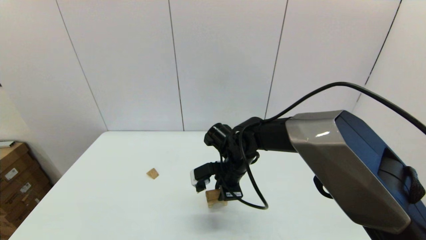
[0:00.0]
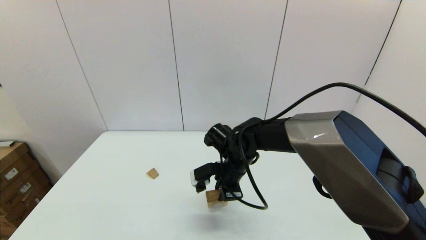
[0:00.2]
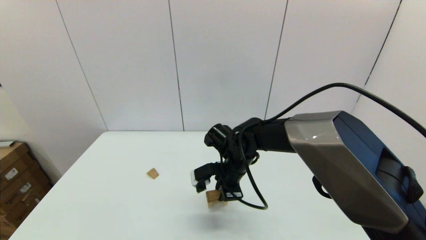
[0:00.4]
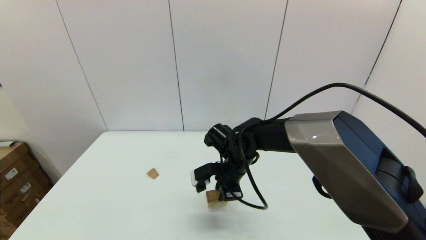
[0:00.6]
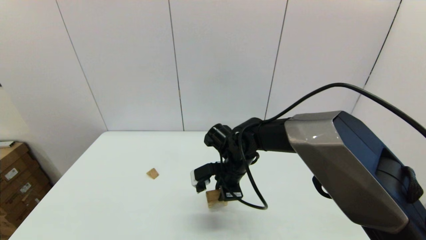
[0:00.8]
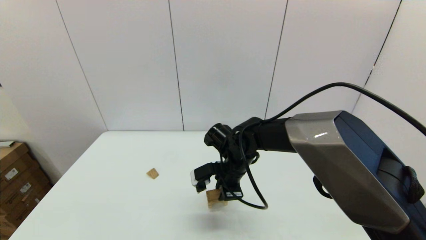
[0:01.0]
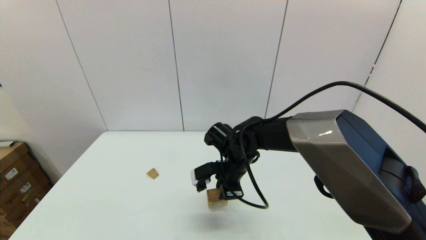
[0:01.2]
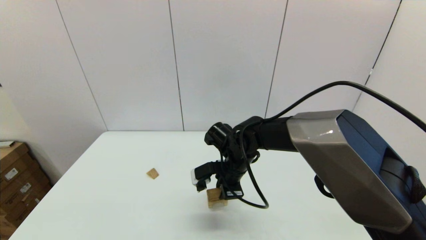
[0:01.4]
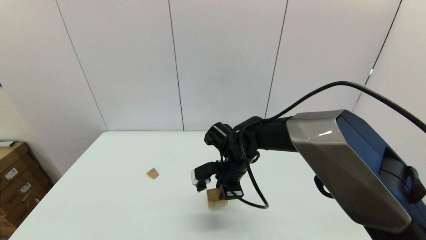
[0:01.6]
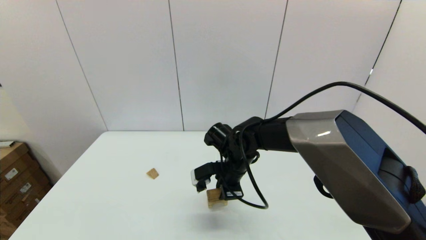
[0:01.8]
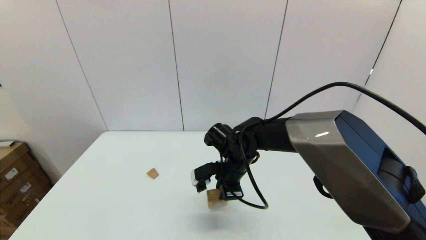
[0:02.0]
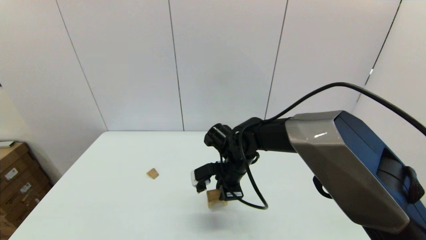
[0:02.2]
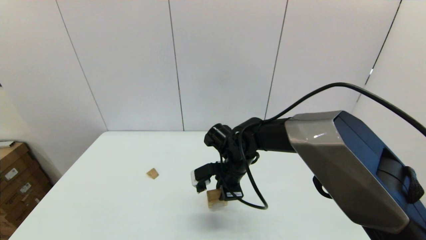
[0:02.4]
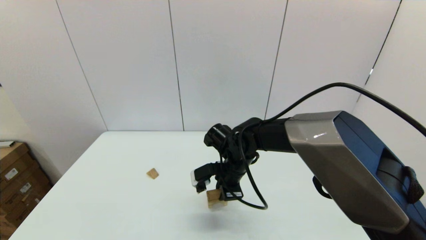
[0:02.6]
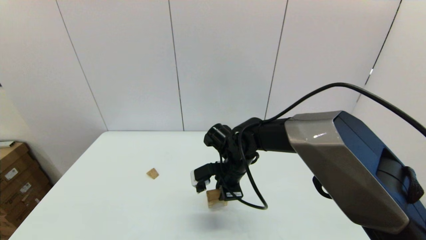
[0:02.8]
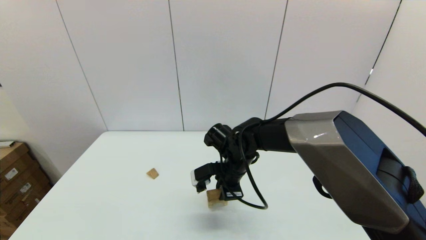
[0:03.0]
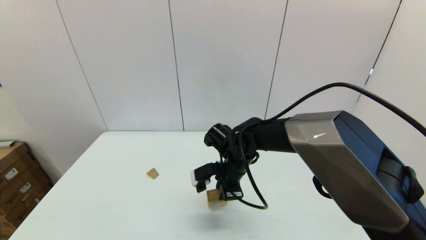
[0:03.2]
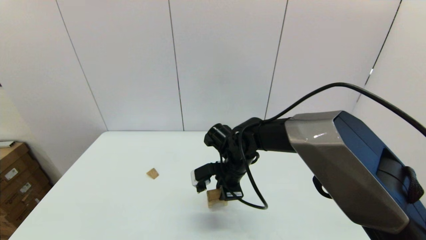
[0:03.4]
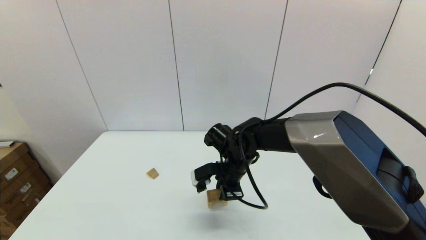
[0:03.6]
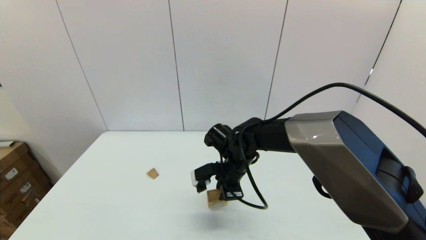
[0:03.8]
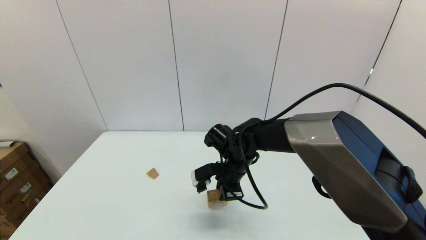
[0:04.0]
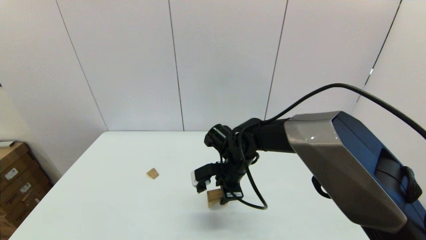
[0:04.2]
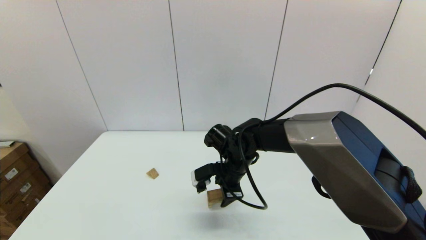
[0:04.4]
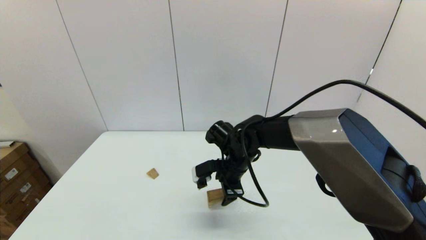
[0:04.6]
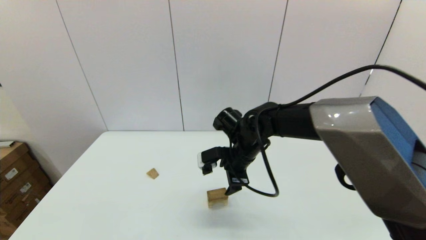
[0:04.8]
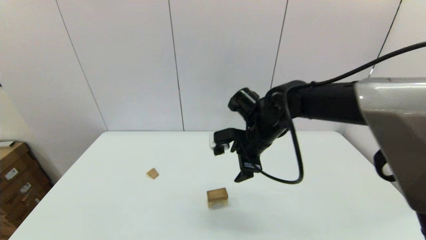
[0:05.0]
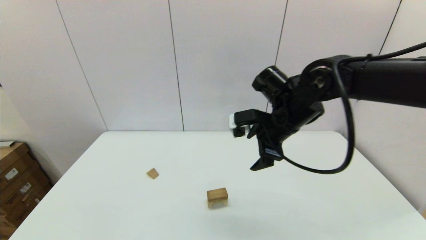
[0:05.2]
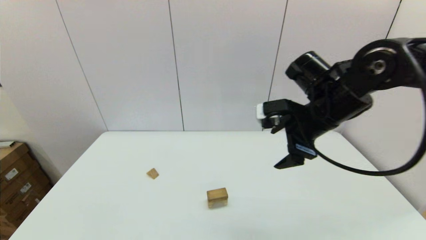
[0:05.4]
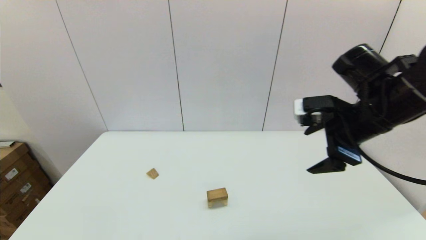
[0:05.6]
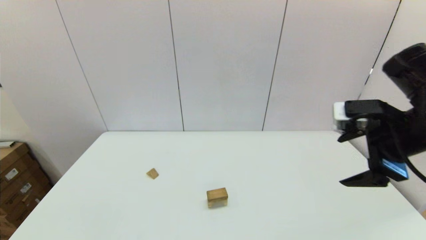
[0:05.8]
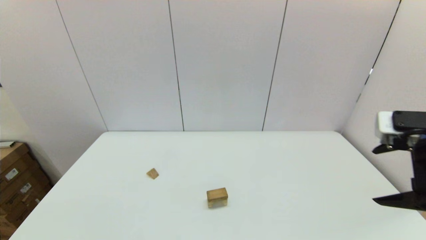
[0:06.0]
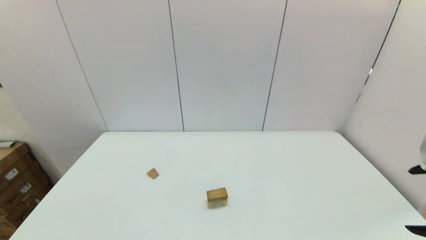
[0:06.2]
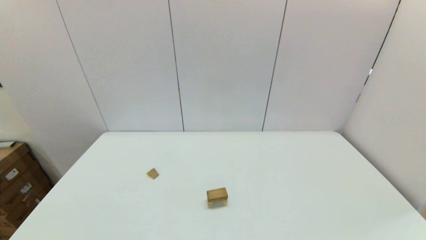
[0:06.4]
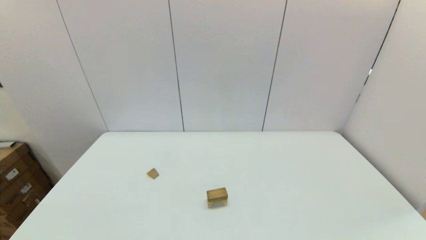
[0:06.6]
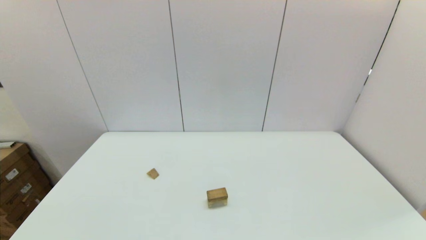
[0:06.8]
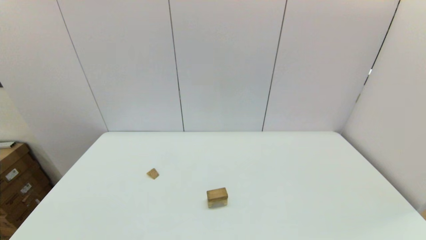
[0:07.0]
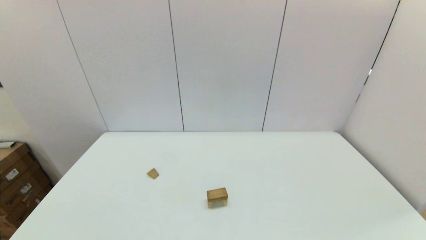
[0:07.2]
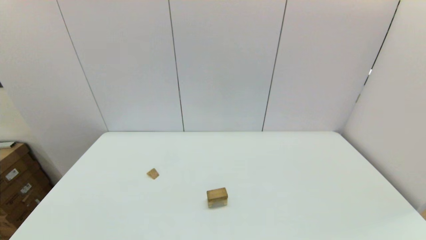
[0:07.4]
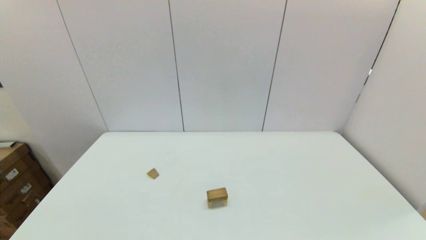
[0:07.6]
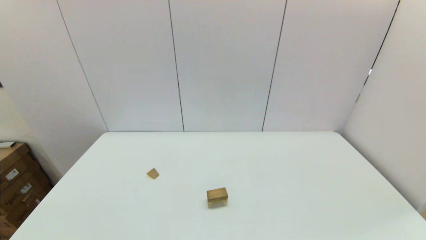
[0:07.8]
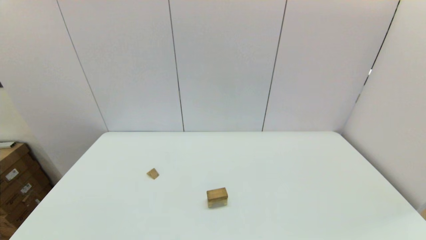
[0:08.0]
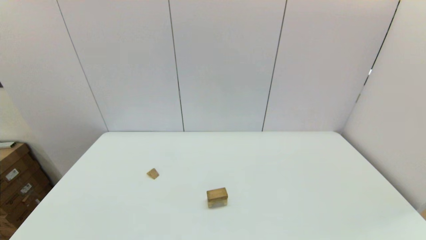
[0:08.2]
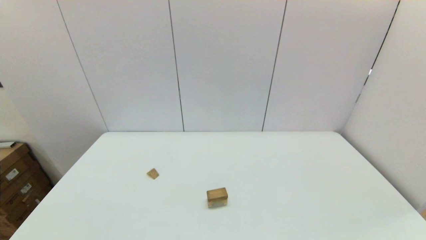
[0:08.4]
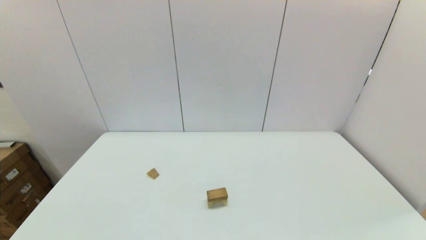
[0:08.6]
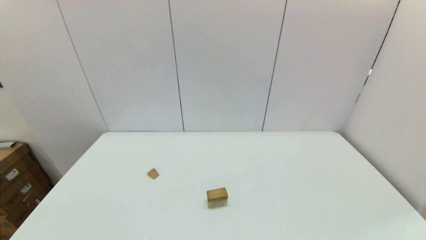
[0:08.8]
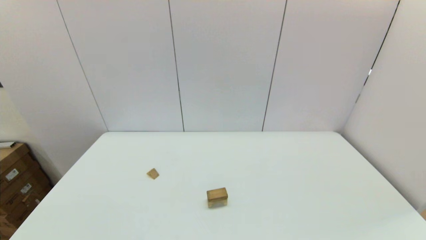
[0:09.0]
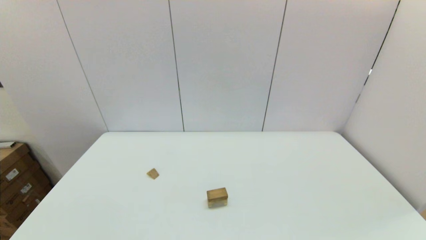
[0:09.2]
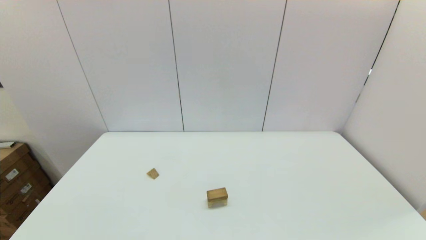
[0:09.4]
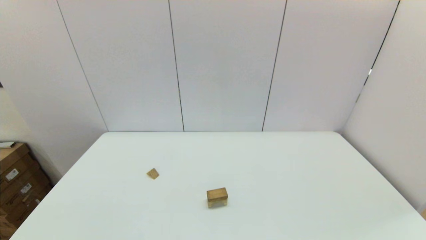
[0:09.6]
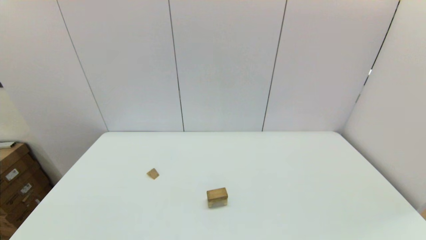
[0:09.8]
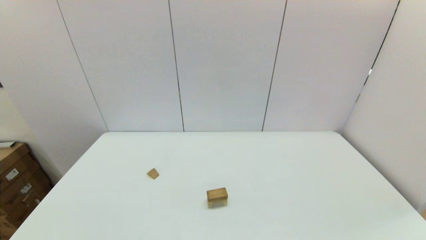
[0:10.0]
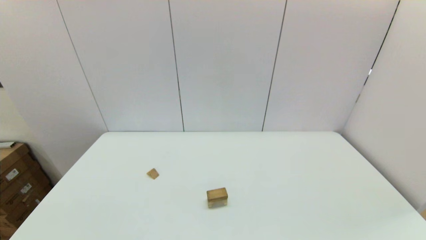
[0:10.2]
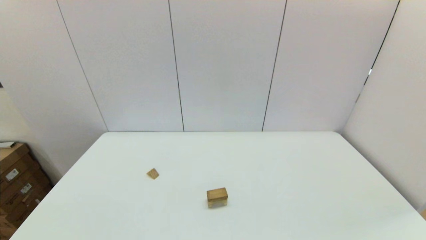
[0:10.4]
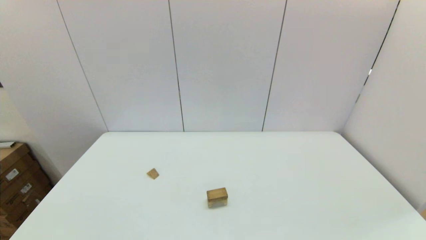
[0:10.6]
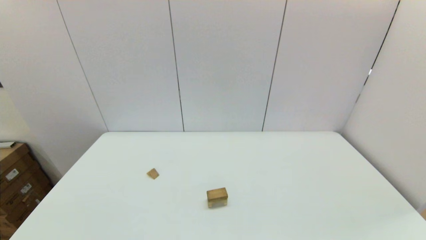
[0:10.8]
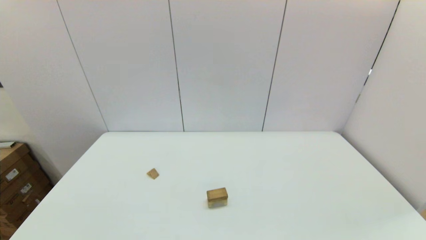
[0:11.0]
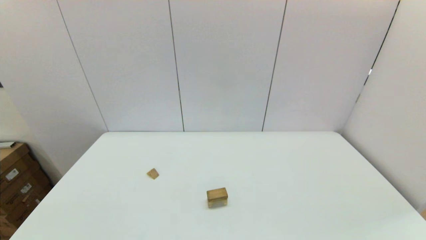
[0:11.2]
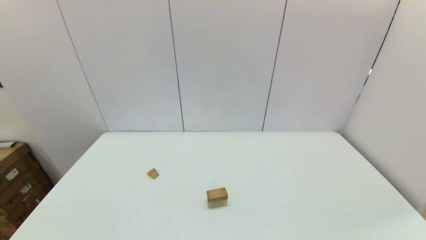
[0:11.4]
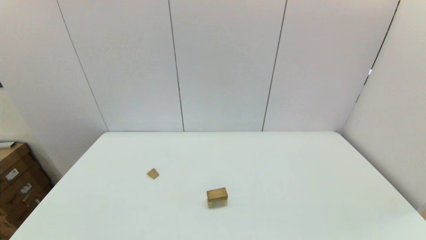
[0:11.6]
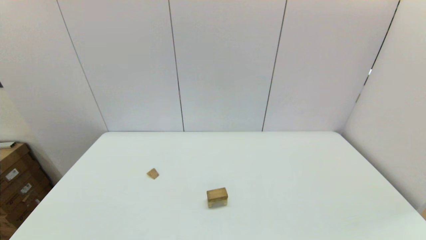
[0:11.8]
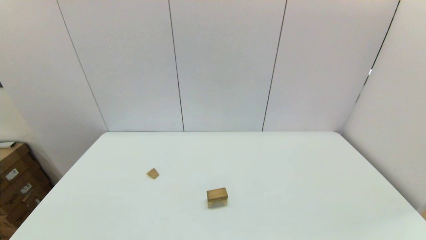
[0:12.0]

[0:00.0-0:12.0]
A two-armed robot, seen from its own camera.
Task of the whole recording: place the arched building blocks in the center of the table, set up the rectangular building blocks, and then set up the triangular building blocks.
Step, 0:00.0 to 0:04.0: Place the box-shaped block onto the arch-shaped block with the right gripper.
0:00.0 to 0:03.0: The two grippers keep their place.
0:03.0 to 0:04.4: The right gripper opens.
0:04.4 to 0:06.0: The right gripper moves to the right, upward and backward, about 35 cm, and opens up.
0:06.0 to 0:07.6: The right gripper goes some 15 cm backward.

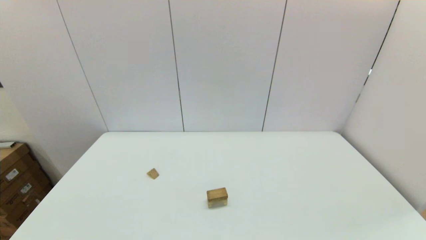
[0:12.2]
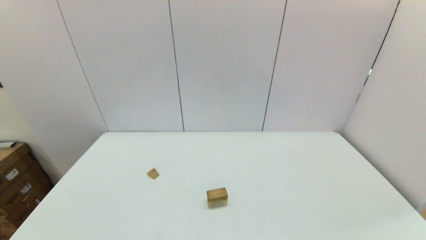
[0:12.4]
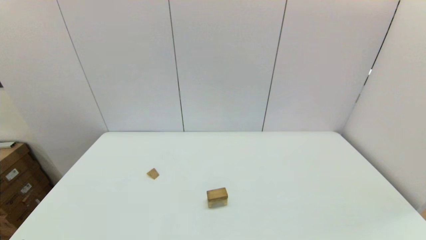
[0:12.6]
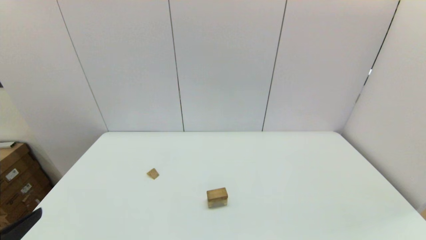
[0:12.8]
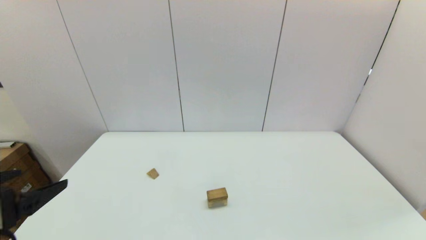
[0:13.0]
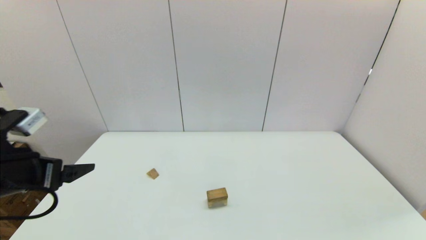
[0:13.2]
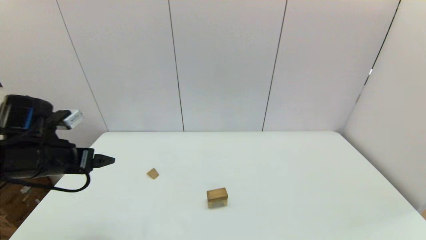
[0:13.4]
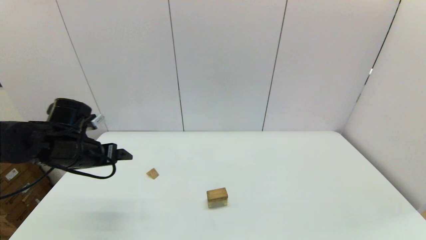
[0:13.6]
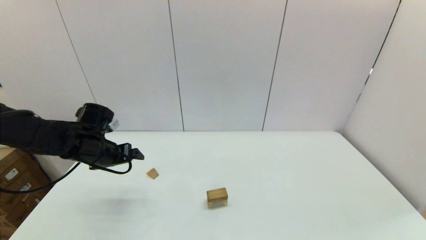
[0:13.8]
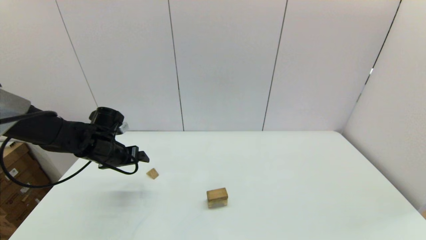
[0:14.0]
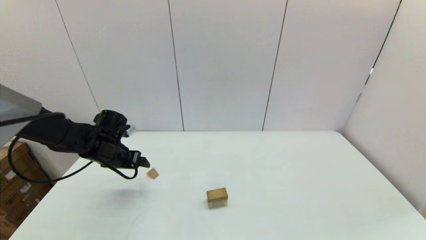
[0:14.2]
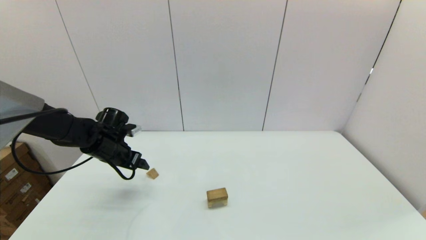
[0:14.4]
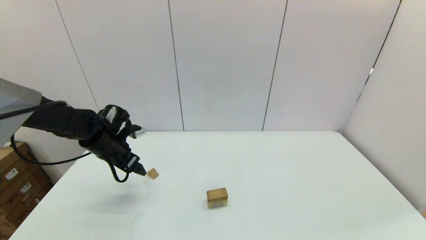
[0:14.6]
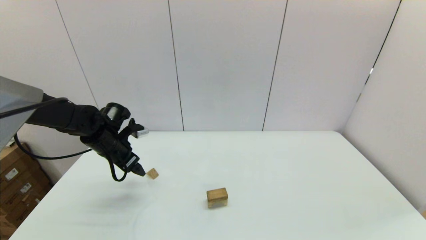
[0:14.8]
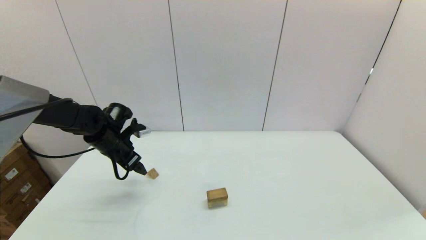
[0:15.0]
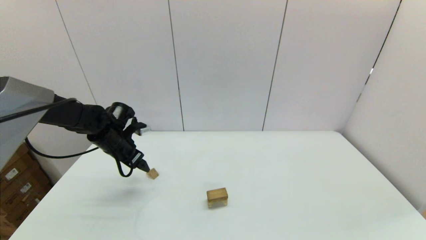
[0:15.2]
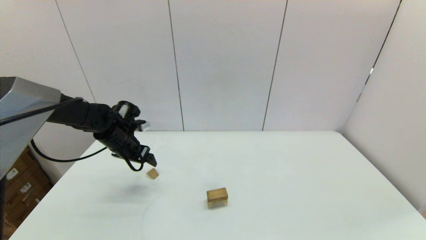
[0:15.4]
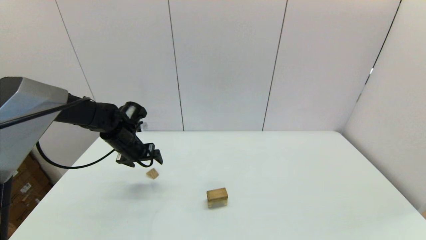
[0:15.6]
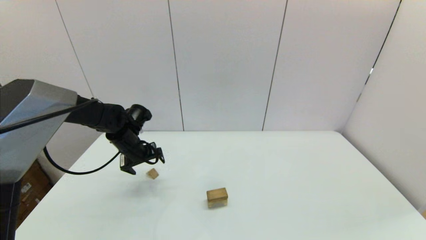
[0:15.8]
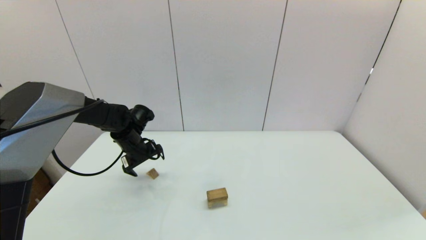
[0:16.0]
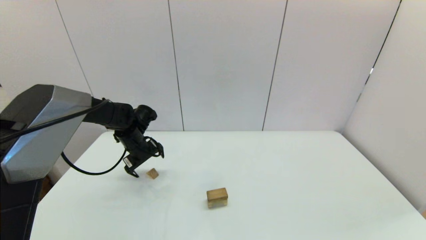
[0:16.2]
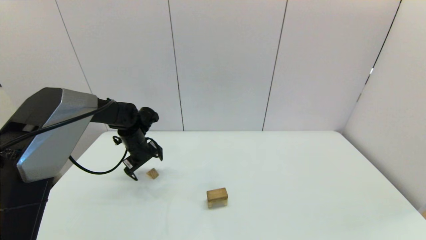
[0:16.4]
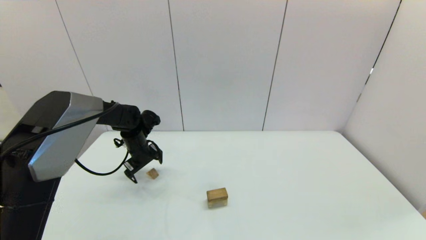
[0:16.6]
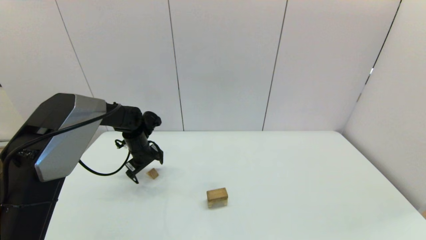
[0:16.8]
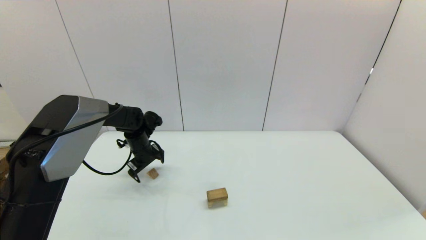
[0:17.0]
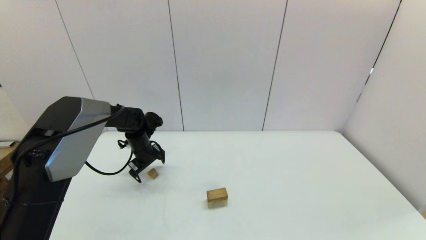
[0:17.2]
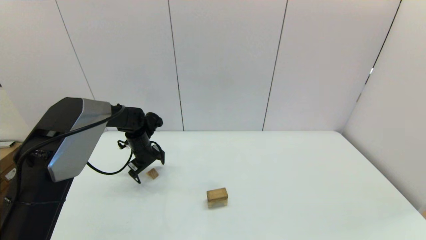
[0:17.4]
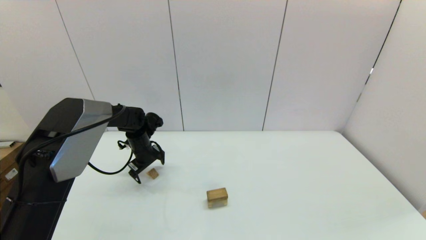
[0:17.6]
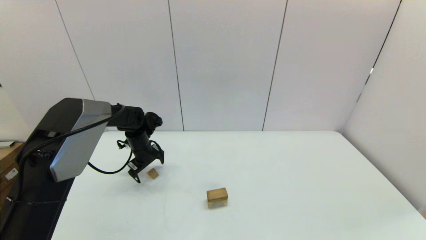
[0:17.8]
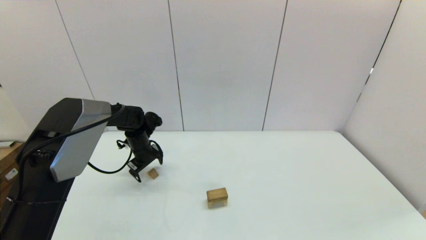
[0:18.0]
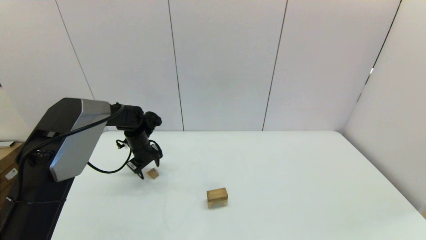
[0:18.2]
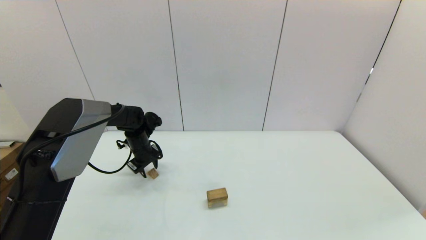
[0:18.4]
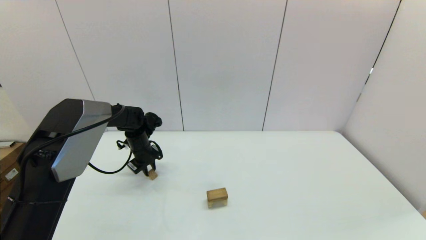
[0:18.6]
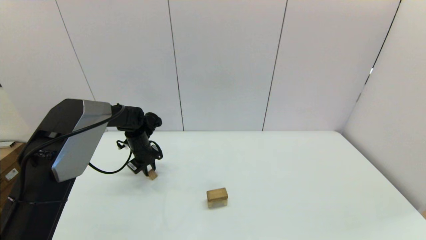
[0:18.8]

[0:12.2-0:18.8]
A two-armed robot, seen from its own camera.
Task of the whole recording: place the arched building blocks in the center of the table, set up the rectangular building blocks, and then set up the triangular building blocks.
Step, 0:12.2 to 0:18.6: Grasp the triangle-shaped block with the left gripper.
0:12.2 to 0:13.8: The left gripper shifts roughly 35 cm forward.
0:13.8 to 0:15.4: The left gripper moves forward, roughly 5 cm.
0:15.4 to 0:17.2: The left gripper heads downward, covering about 5 cm.
0:17.2 to 0:18.8: The left gripper closes.
